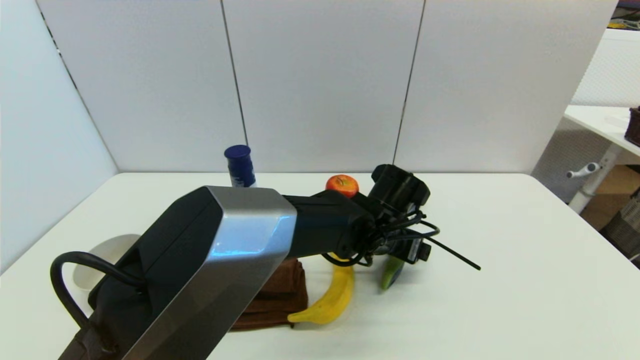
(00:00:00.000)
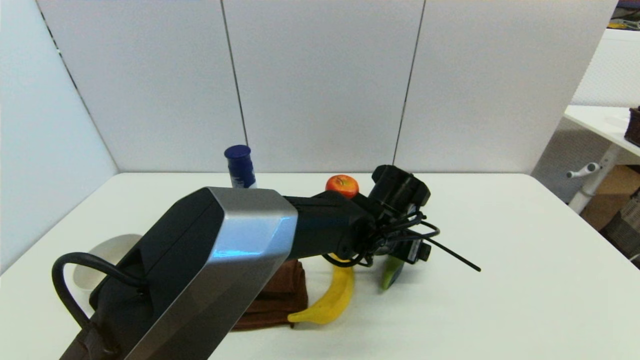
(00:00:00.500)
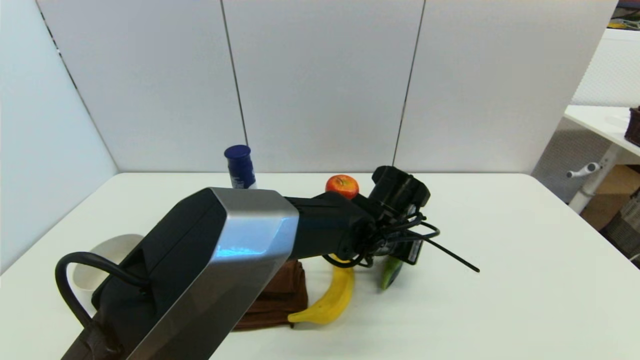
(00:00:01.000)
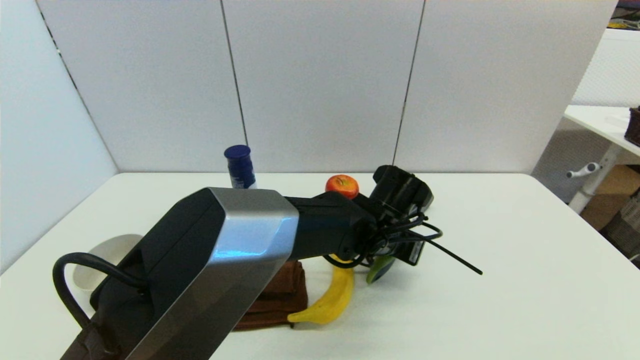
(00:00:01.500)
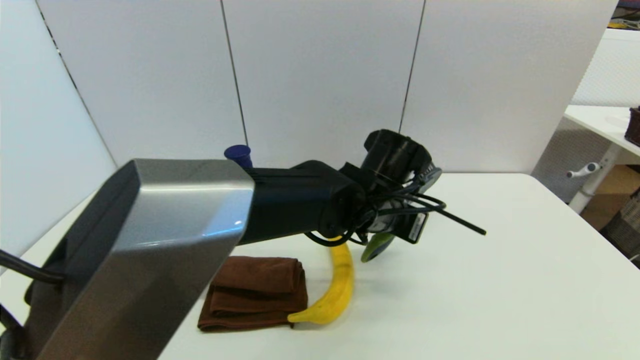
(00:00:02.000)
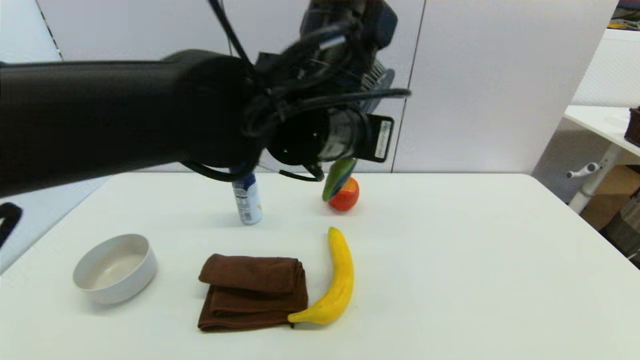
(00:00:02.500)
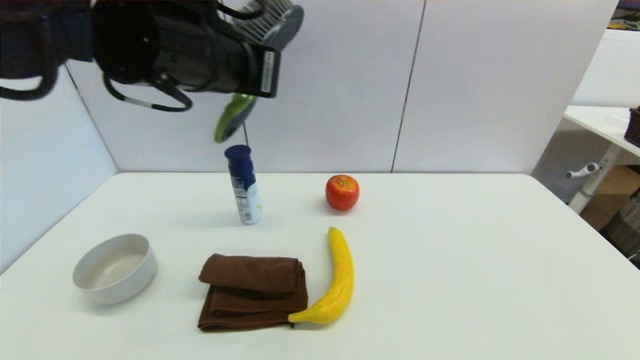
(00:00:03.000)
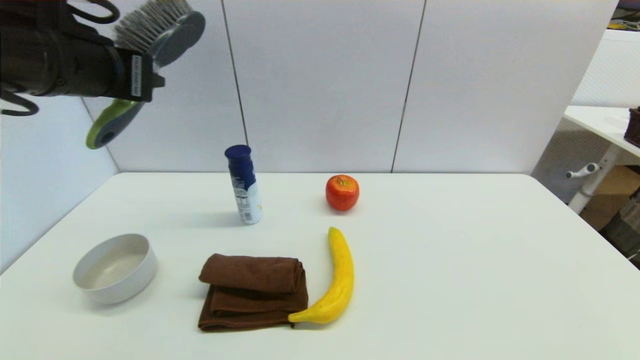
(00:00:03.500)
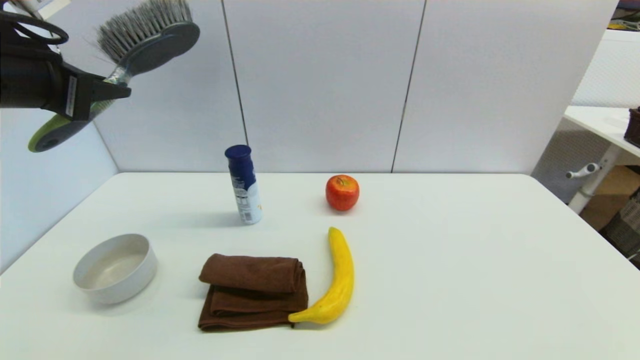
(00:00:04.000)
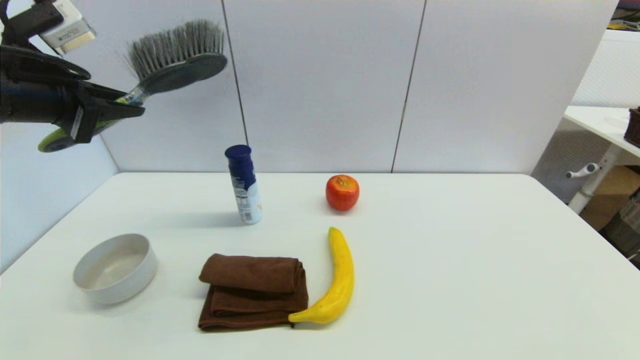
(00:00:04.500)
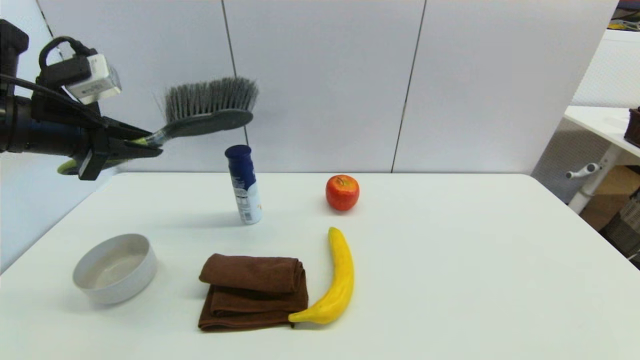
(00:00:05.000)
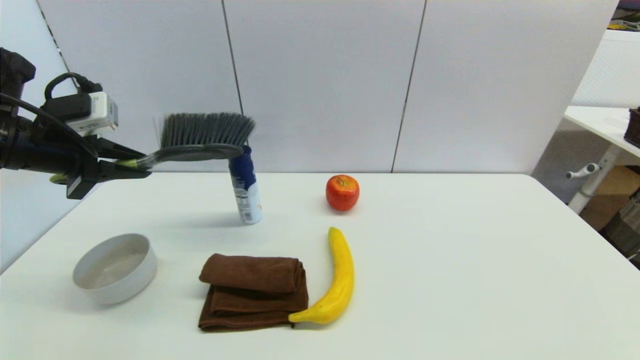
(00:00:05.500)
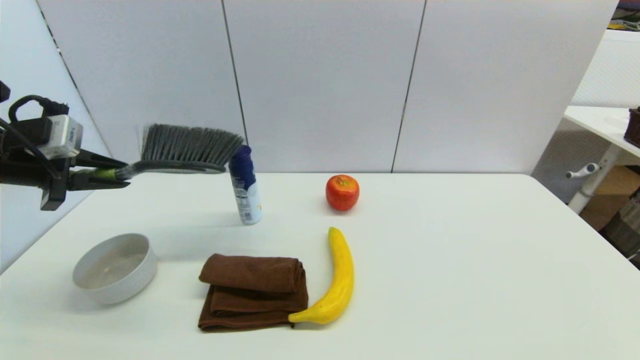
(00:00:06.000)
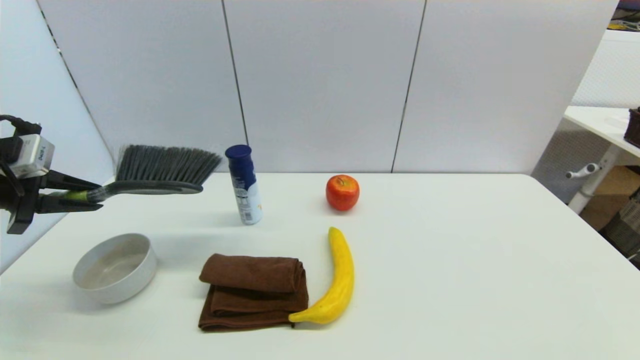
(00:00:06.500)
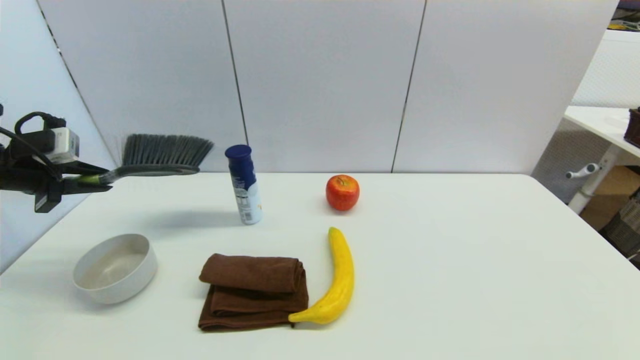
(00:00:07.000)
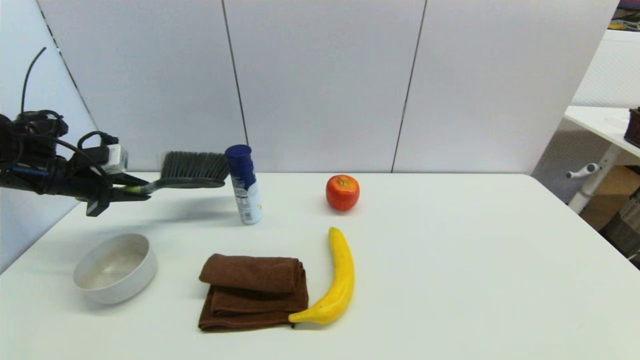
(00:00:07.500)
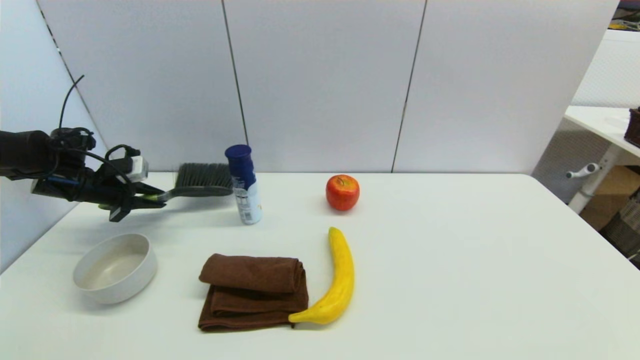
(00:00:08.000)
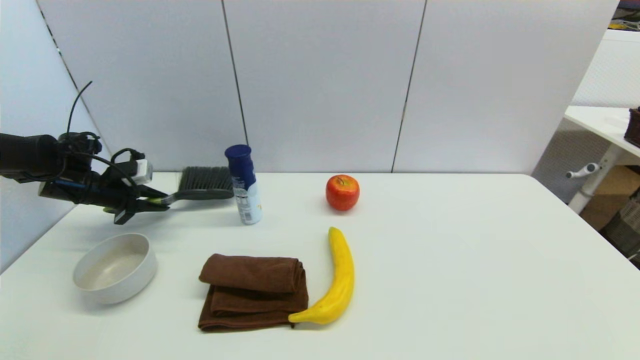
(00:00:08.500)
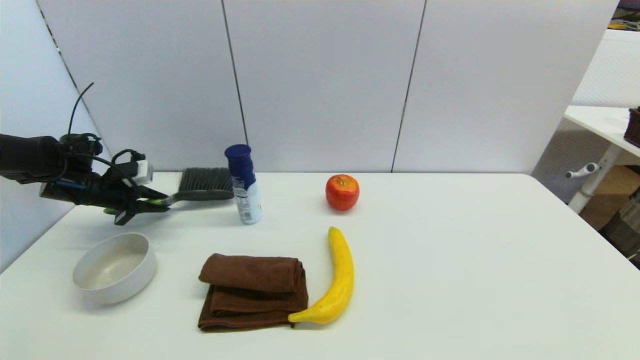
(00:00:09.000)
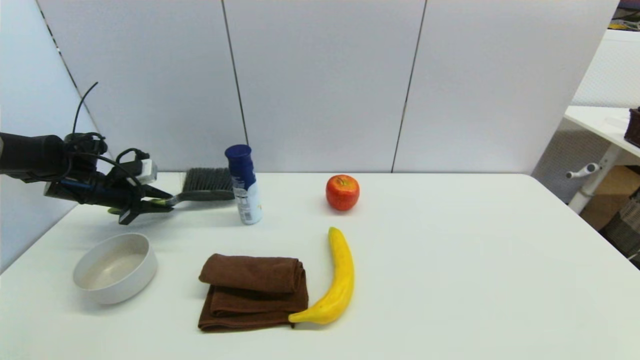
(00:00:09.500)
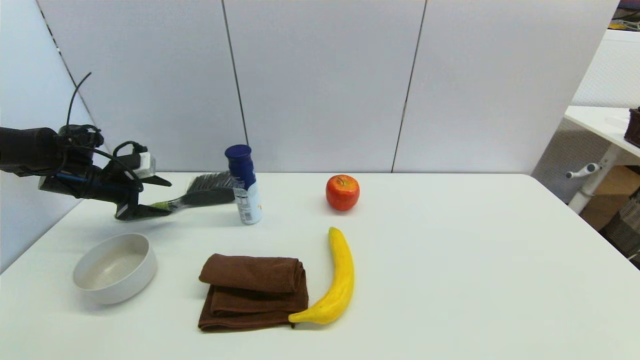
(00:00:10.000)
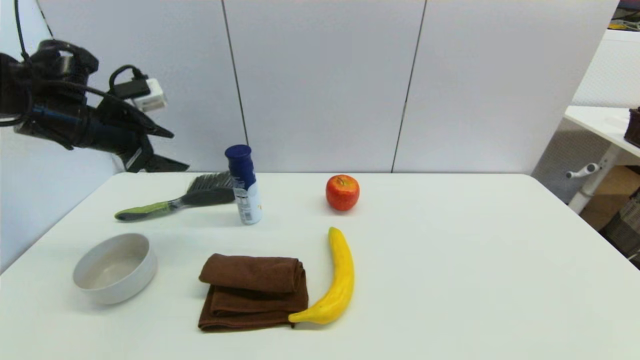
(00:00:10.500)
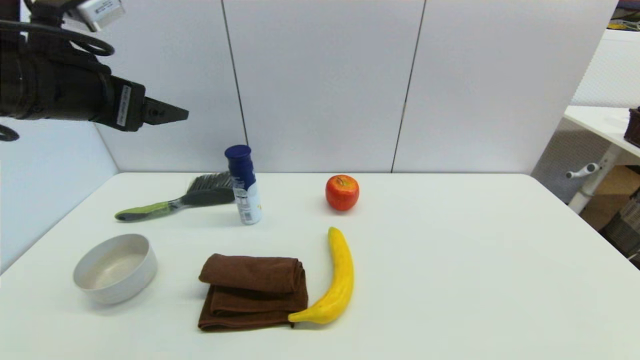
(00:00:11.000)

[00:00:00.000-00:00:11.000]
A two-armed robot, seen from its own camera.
Task of the whole recording: put the brush in the designated position.
Step, 00:00:02.000 to 00:00:10.000: Place the brush on the table with left gripper.
00:00:00.000 to 00:00:02.000: The left gripper shifts about 5 cm upward, and closes its fingers.
00:00:02.000 to 00:00:03.500: The left gripper shifts roughly 35 cm to the left and upward.
00:00:03.500 to 00:00:05.500: The left gripper travels to the left and downward by roughly 15 cm.
00:00:05.500 to 00:00:07.500: The left gripper heads downward, forward and to the left, covering some 15 cm.
00:00:07.500 to 00:00:09.000: The left gripper moves approximately 5 cm.
00:00:09.000 to 00:00:11.000: The left gripper shifts about 30 cm upward, backward and to the right, and opens up.

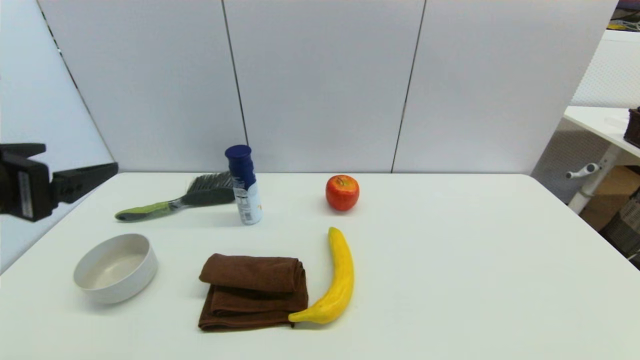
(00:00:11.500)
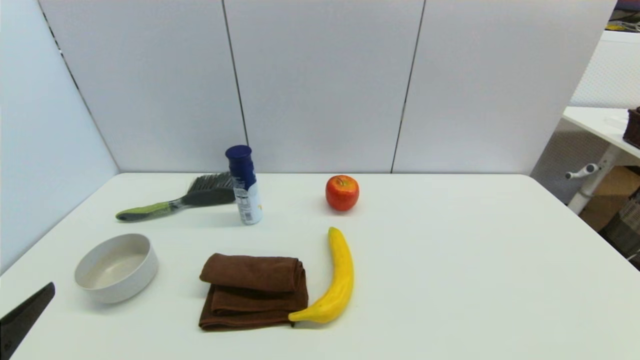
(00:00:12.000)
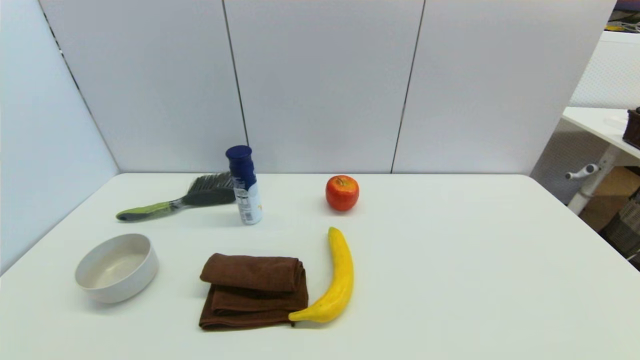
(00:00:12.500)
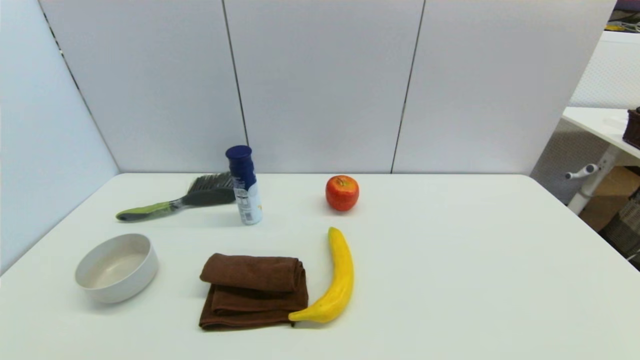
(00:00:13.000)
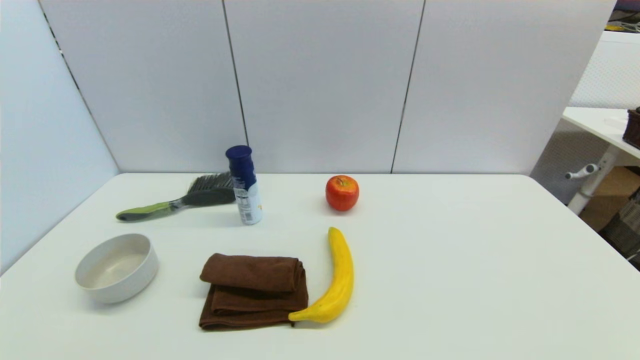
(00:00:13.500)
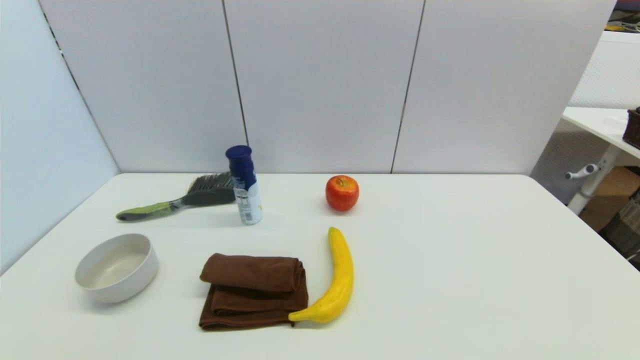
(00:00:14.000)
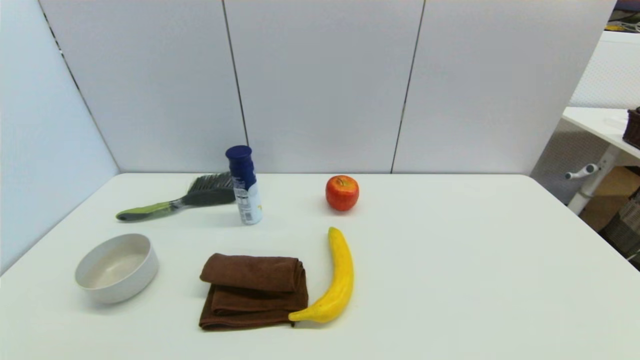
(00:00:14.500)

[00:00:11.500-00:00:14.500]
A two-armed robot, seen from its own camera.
Task of the whole recording: put the brush in the designated position.
00:00:11.500 to 00:00:13.000: The left gripper shifts some 25 cm downward and backward.
00:00:13.000 to 00:00:14.500: Both grippers stay about where they are.

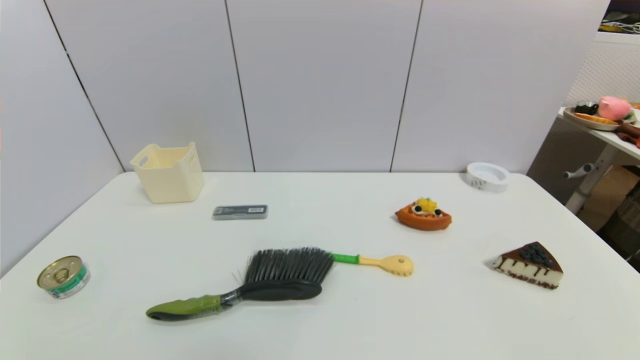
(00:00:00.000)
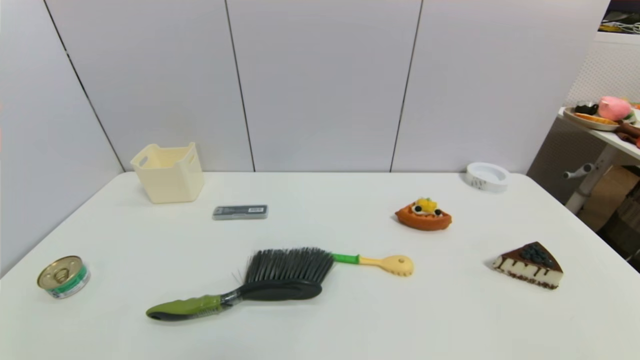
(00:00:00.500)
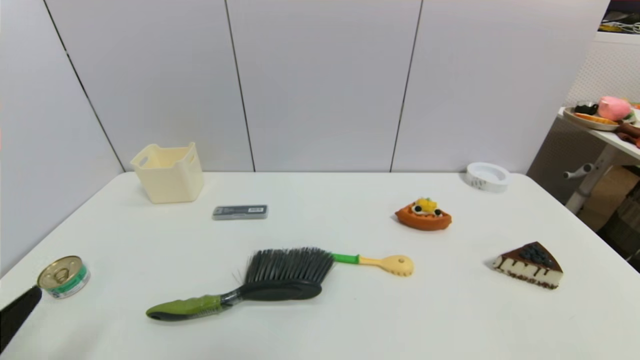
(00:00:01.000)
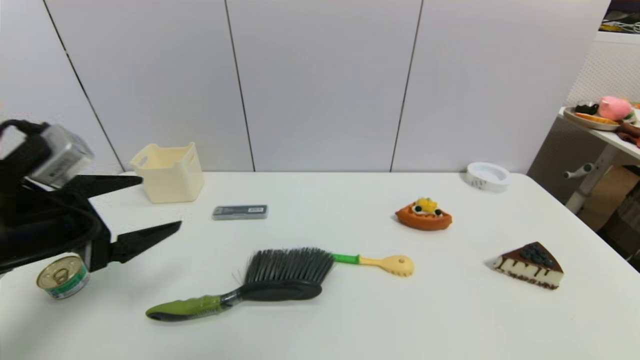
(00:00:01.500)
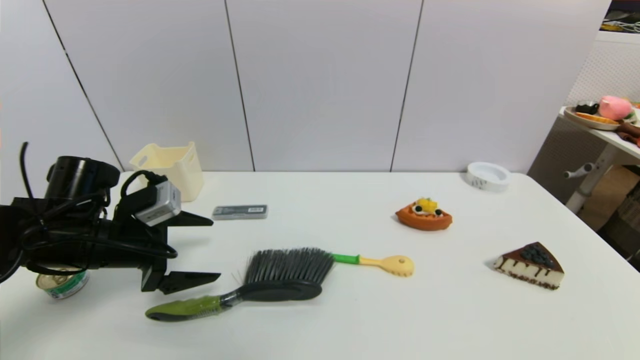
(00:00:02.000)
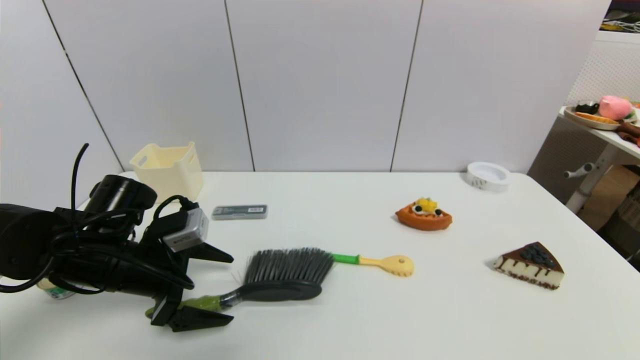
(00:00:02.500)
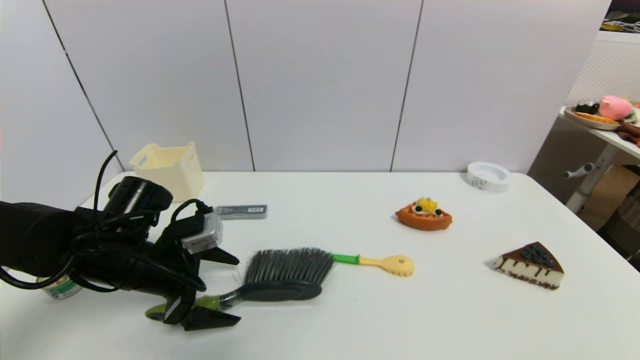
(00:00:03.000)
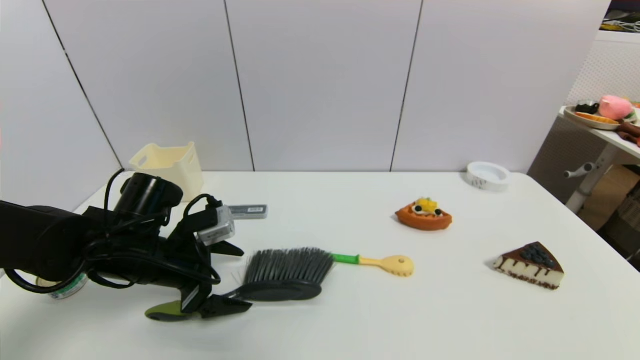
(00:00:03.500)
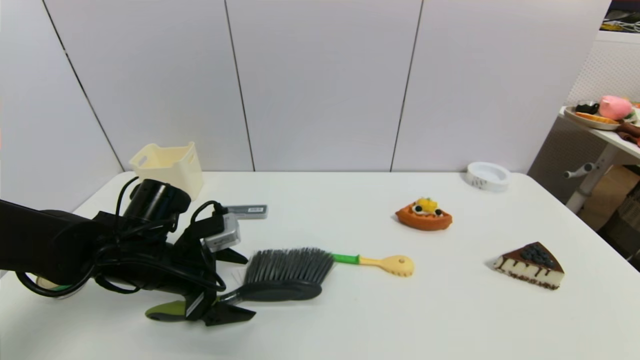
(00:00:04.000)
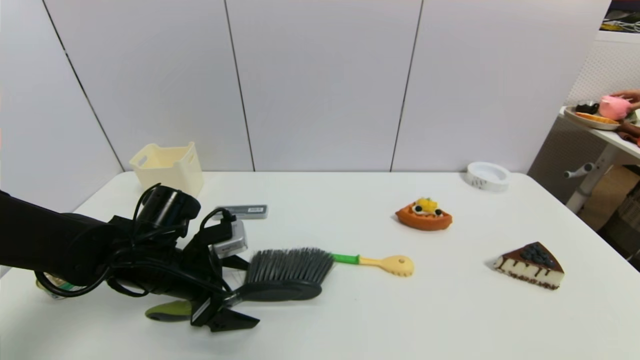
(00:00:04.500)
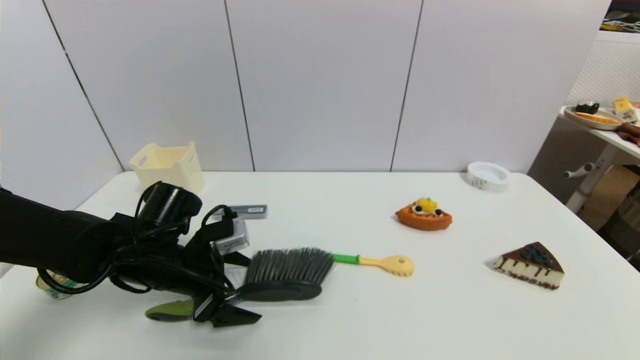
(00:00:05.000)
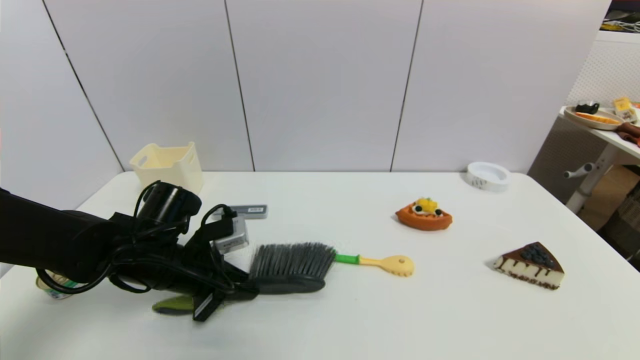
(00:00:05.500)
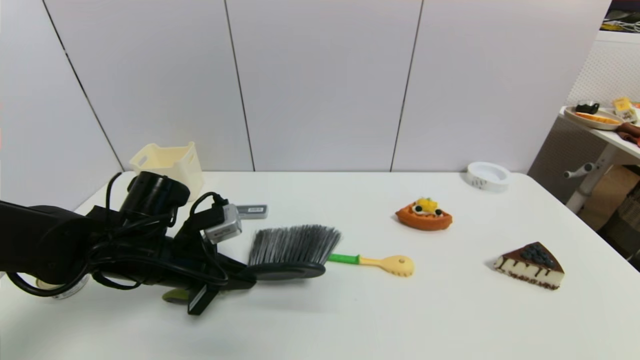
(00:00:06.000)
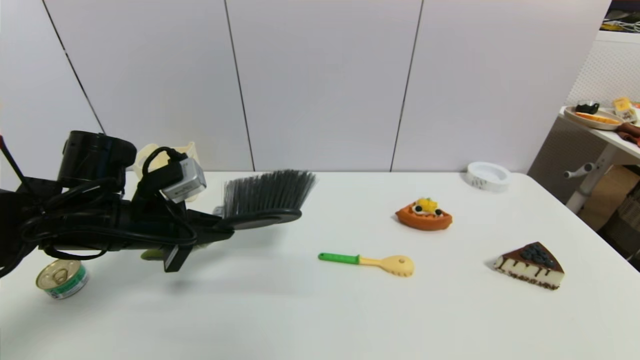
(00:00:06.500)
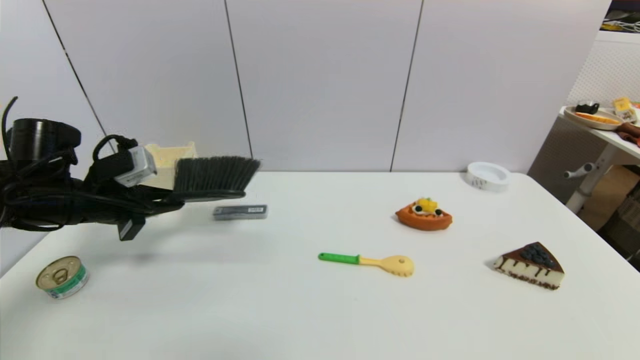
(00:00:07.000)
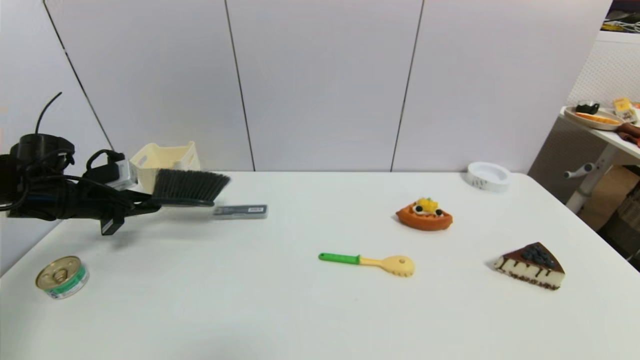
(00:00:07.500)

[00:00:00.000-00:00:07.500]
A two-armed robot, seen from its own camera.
Task of the whole recording: put the brush in the designated position.
Step, 00:00:01.000 to 00:00:05.500: Grasp the brush with left gripper.
00:00:00.000 to 00:00:02.000: The left gripper goes some 30 cm forward.
00:00:02.000 to 00:00:04.000: The left gripper goes about 5 cm to the right.
00:00:04.000 to 00:00:05.500: The left gripper closes.
00:00:05.500 to 00:00:07.500: The left gripper shifts roughly 20 cm to the left and forward.
